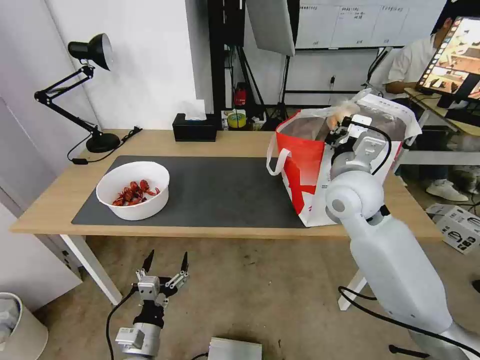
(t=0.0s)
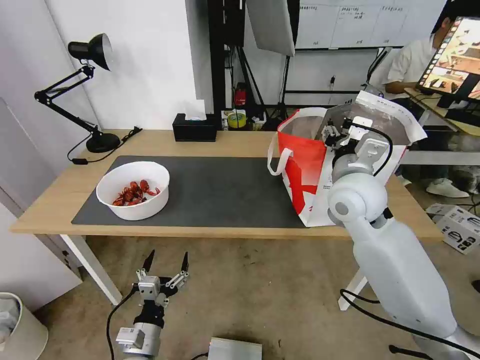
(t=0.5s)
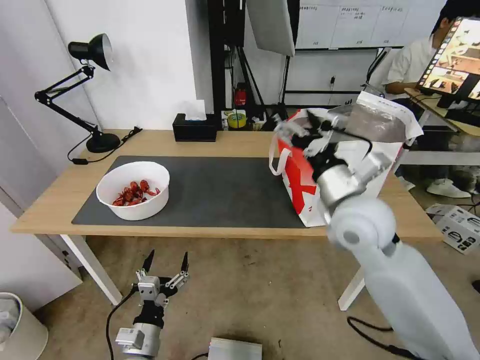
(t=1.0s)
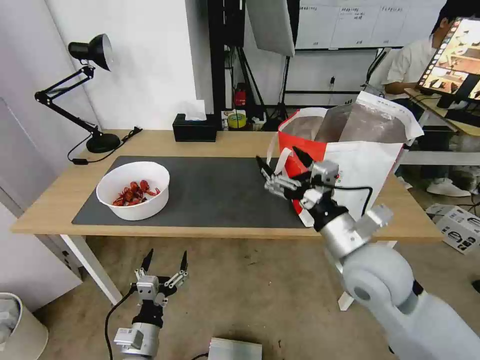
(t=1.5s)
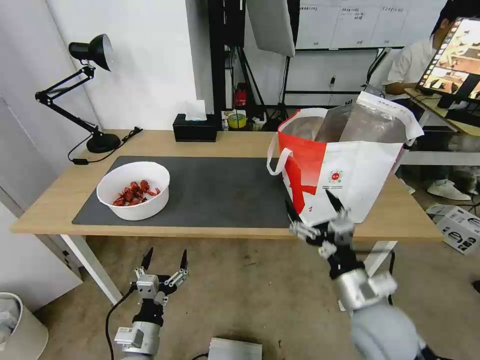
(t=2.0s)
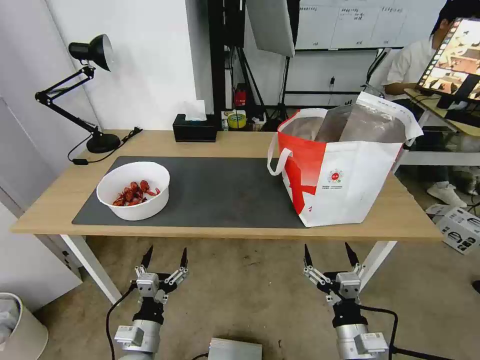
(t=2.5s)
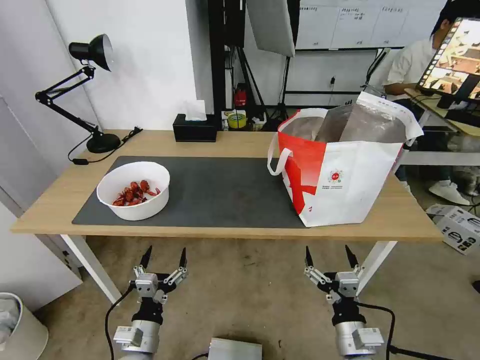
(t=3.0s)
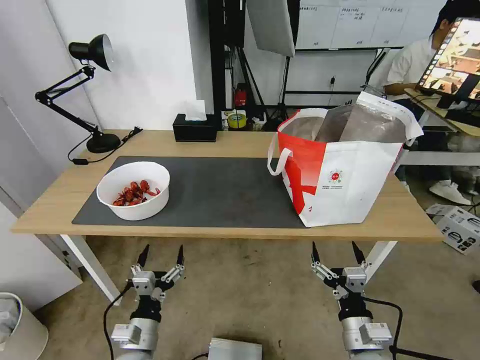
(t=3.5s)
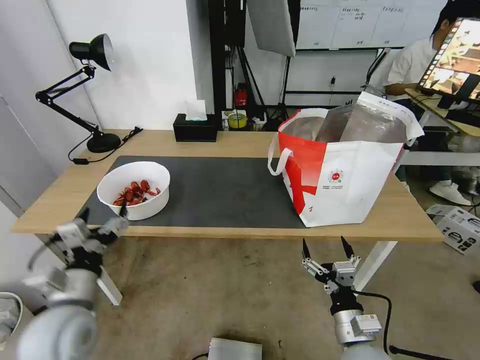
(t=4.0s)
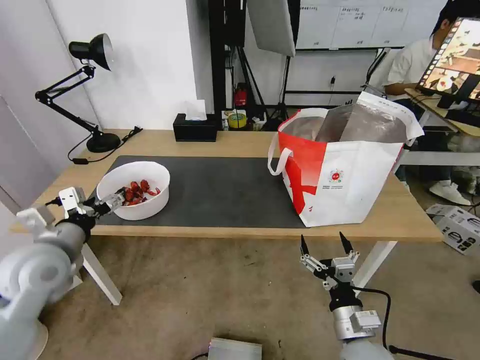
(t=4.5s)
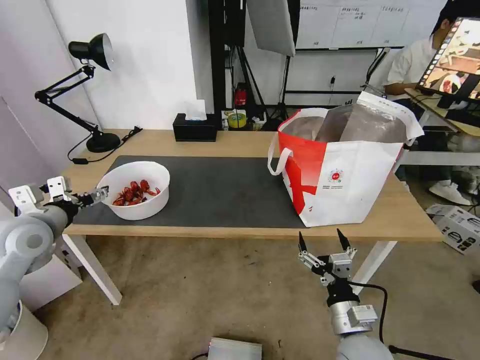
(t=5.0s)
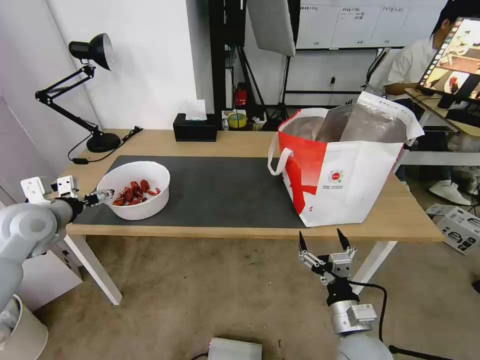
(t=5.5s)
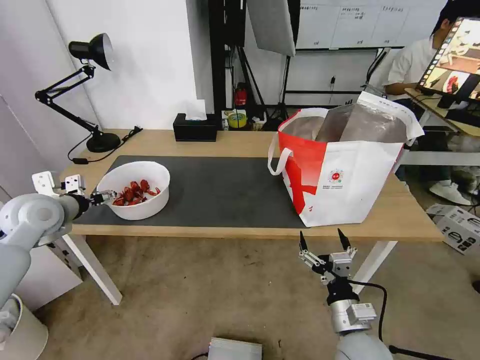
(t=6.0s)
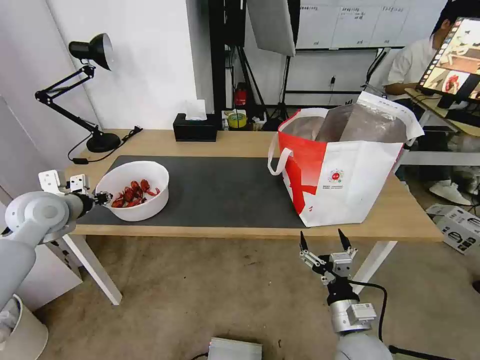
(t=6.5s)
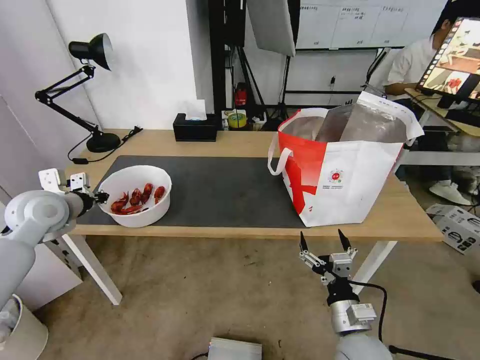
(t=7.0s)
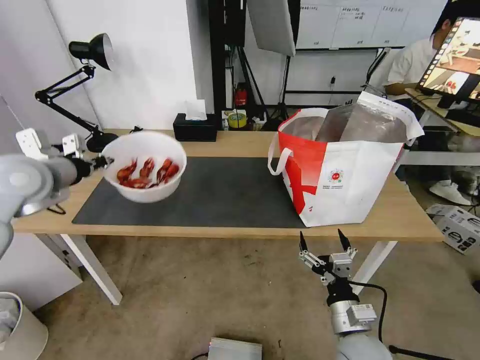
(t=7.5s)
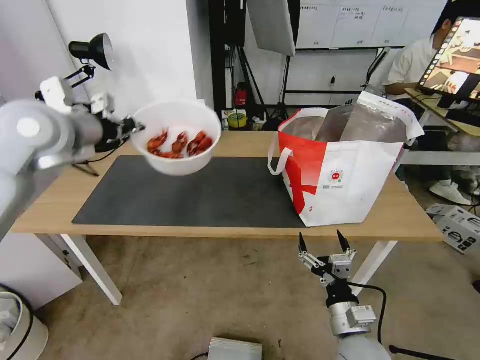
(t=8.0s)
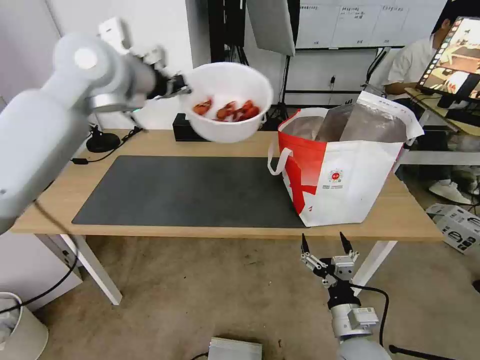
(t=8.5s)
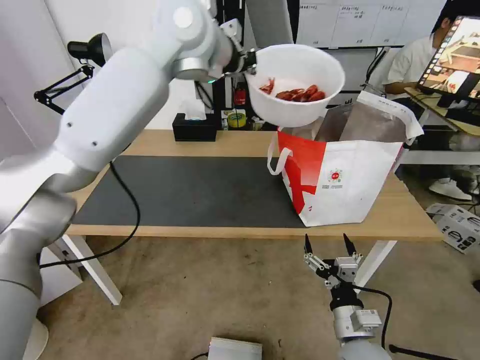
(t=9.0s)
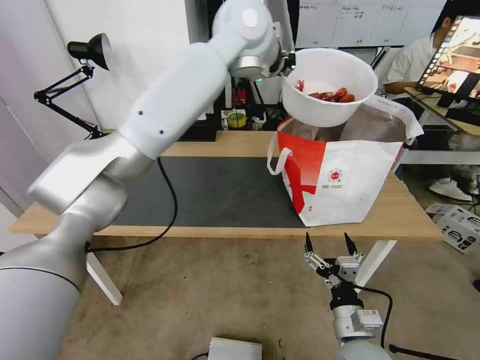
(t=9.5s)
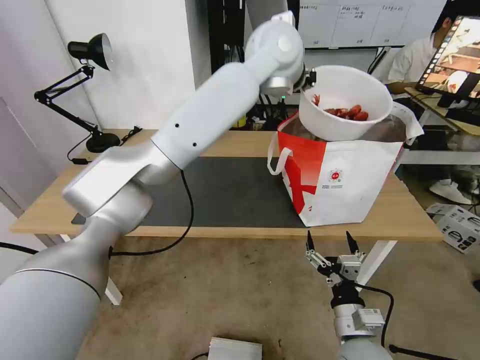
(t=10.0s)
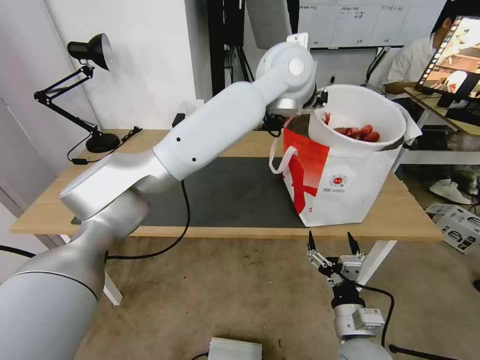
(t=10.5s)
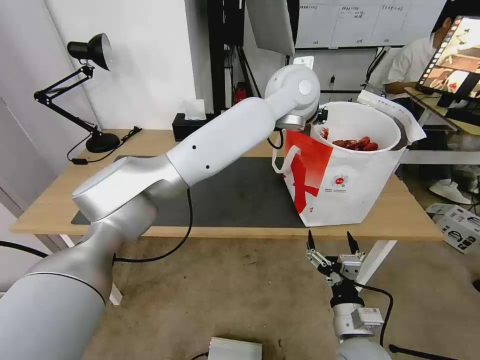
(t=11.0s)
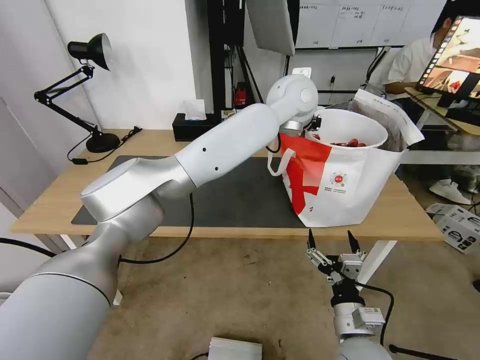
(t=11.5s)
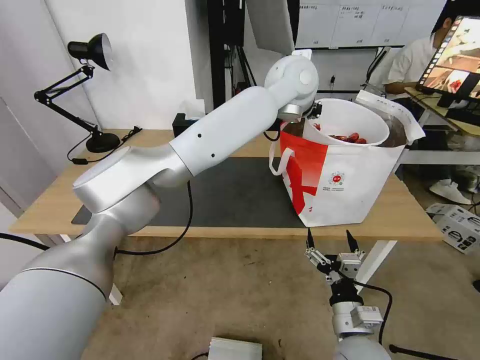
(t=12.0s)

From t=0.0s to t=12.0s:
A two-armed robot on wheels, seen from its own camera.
Task of the whole recording: Pick up the trash from the table and place it into the takeout bag.
From t=0.0s to t=2.0s: The right gripper travels backward and downward by approximately 25 cm, and opens.
From t=2.0s to t=4.0s: The right gripper goes roughly 10 cm downward. Meanwhile the left gripper goes approximately 15 cm upward and to the left.
From t=4.0s to t=6.0s: The left gripper heads forward, to the left and upward, covering about 25 cm.
From t=6.0s to t=8.0s: The left gripper moves upward and to the right, approximately 20 cm, and closes its fingers.
From t=8.0s to t=10.0s: The left gripper heads to the right, covering roughly 40 cm.

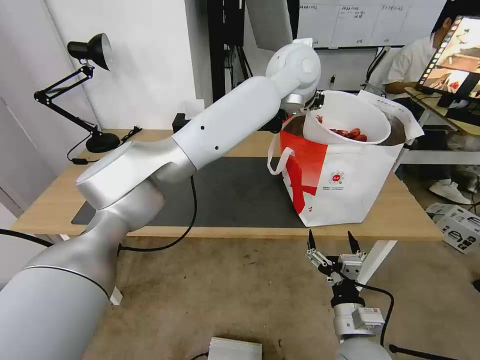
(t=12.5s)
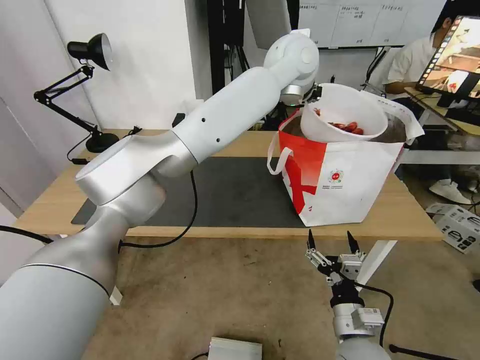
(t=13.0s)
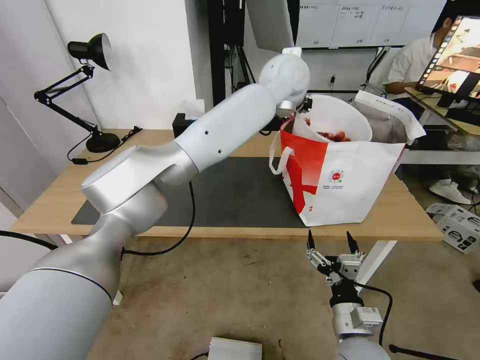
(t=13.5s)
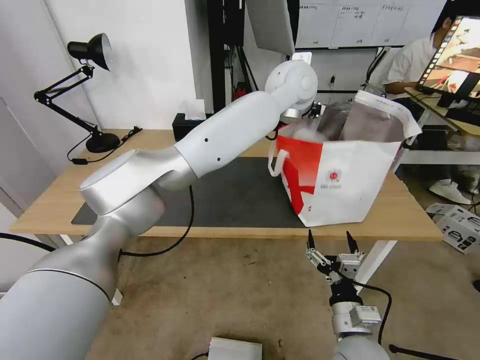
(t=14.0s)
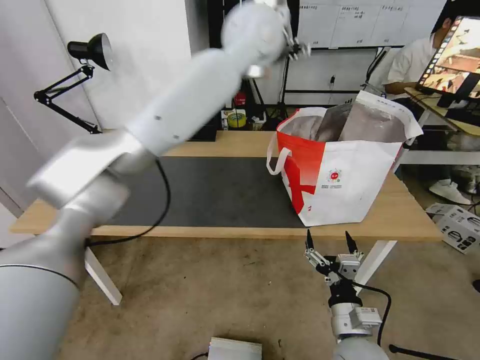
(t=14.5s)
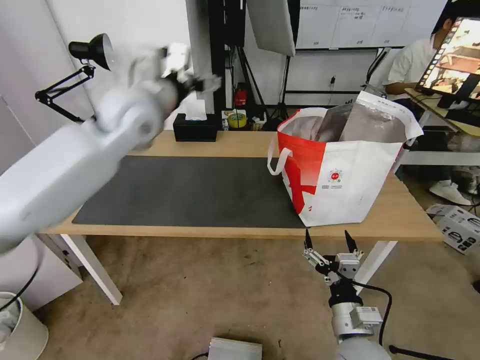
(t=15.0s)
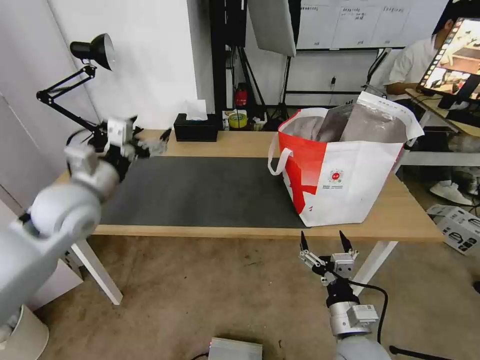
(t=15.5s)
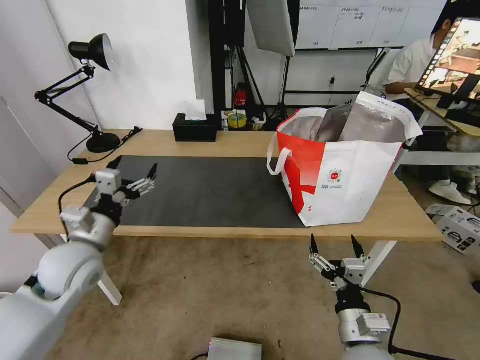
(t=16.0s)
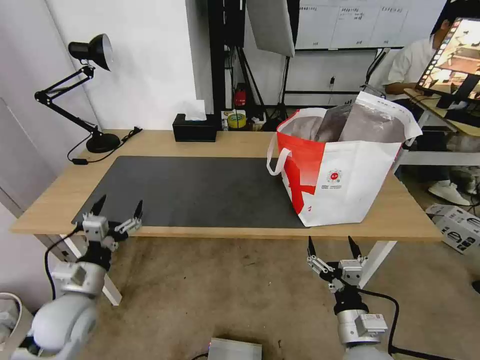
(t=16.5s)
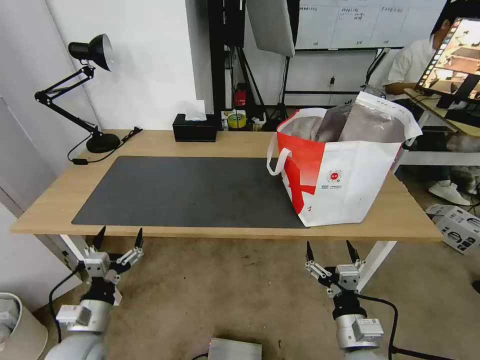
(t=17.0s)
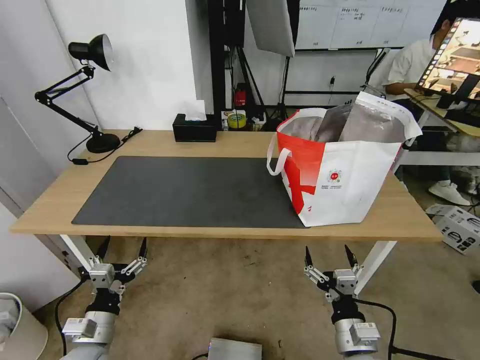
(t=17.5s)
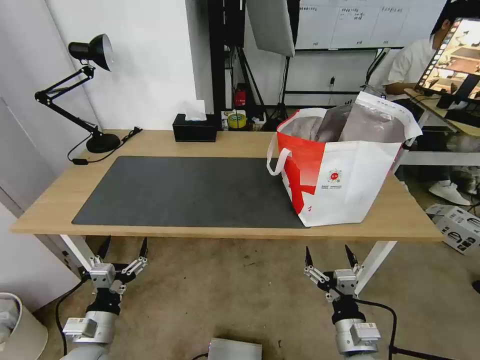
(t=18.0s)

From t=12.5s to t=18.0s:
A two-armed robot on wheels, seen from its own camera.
Task of the whole recording: Pick up the trash from the table and place it into the takeout bag.
From t=12.5s to t=14.5s: The left gripper moves to the left, about 5 cm, and opens.
From t=14.5s to t=16.0s: The left gripper shifts roughly 50 cm to the left, downward and backward.
From t=16.0s to t=18.0s: The left gripper heads downward and backward, covering about 20 cm.
